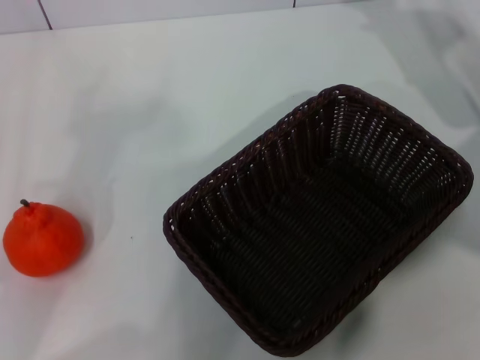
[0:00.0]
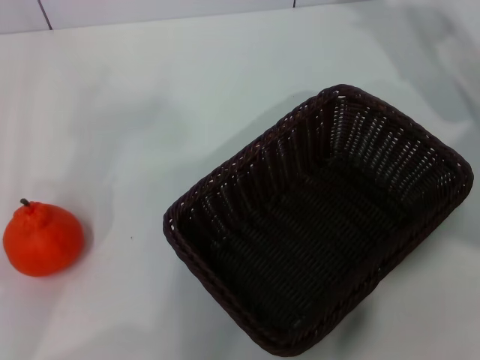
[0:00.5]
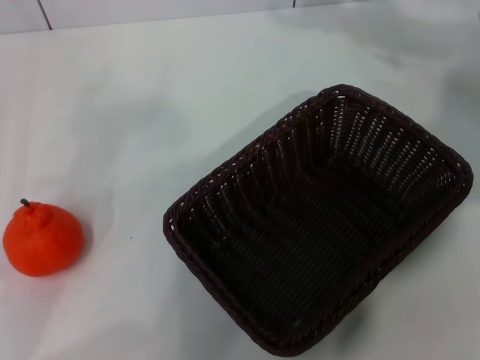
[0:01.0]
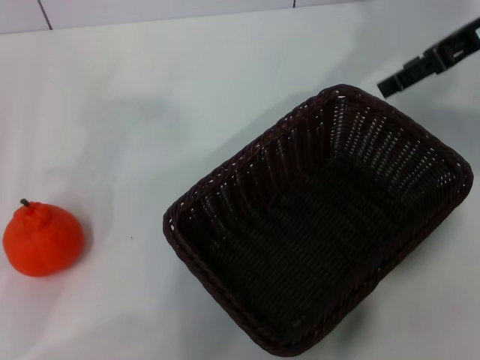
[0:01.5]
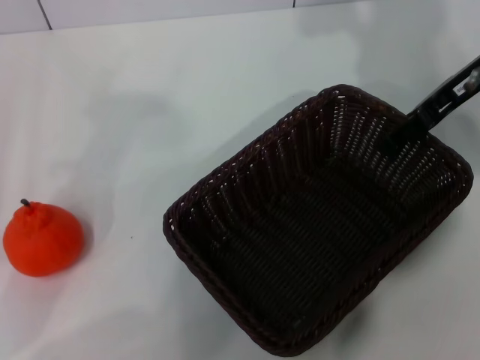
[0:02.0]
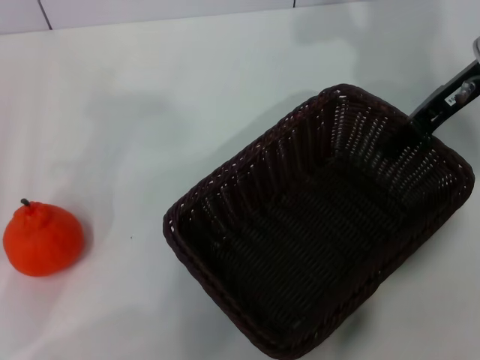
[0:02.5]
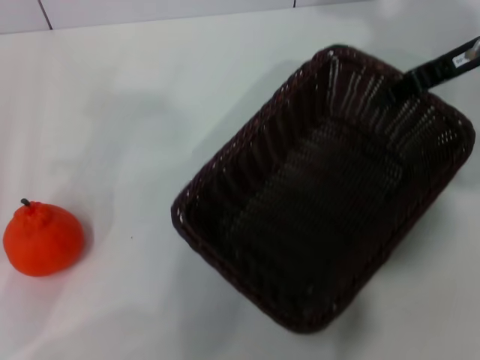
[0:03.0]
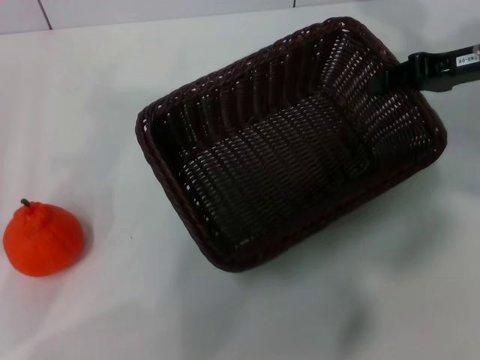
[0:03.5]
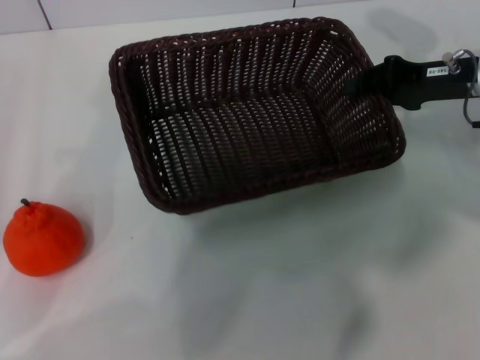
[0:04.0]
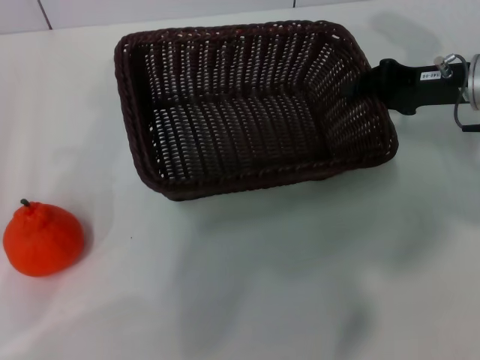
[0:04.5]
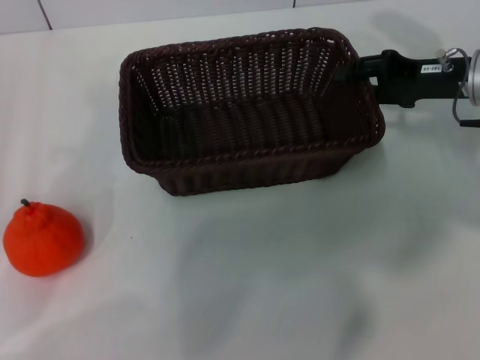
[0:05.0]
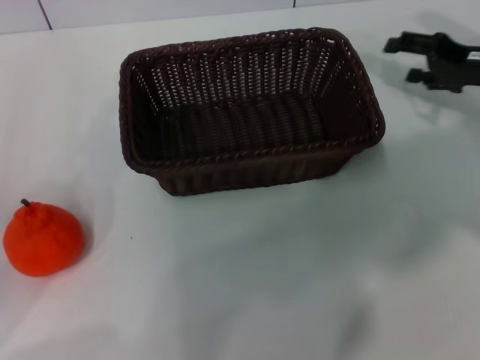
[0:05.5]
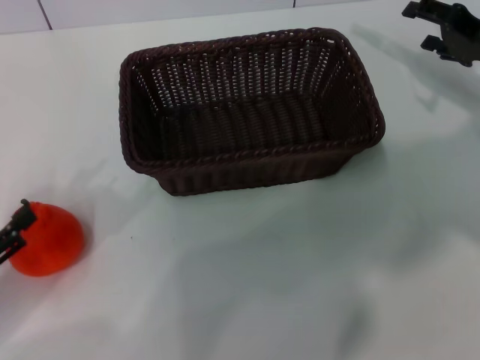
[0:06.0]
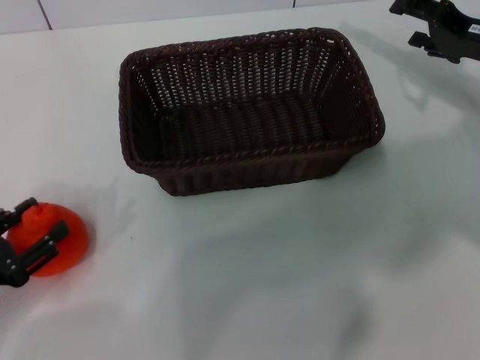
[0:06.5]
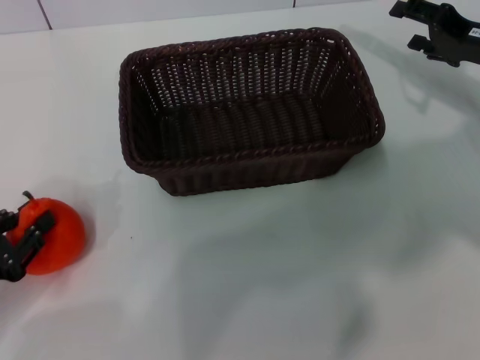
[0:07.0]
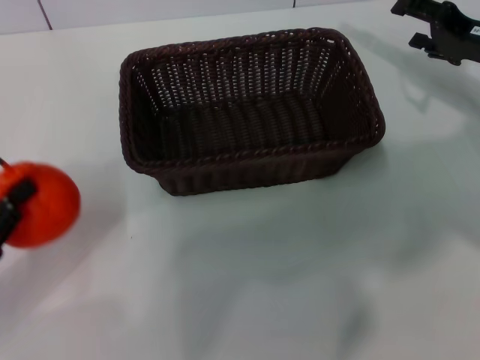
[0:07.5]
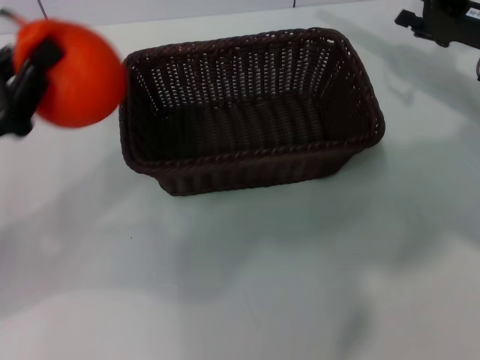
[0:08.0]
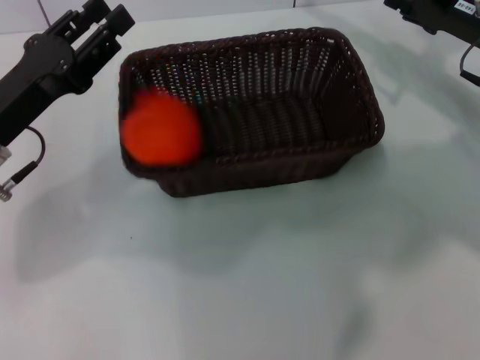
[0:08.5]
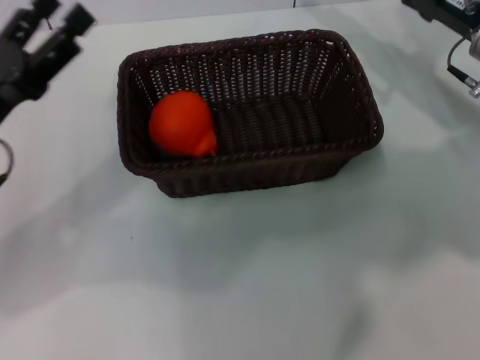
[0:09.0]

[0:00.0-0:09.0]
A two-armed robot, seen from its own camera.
Task of the whole recording: the right gripper pick up the black basket and place it horizontally in the middle of the table, the left gripper pick up the orange and place it into the black basket.
Step, 0:00.0 to 0:03.0: Pick up the dark basket with the right gripper.
Step, 0:03.5 to 0:05.0: Place the dark basket in the center of view with the right gripper.
Step, 0:05.5 to 0:07.0: Pick up the orange with the left gripper.
Step, 0:07.5 to 0:08.5: Place the orange into the dark basket with the left gripper.
0:00.0 to 0:02.0: The right gripper is displaced upward by roughly 5 cm.
0:02.0 to 0:04.5: The right gripper moves downward, about 10 cm, and closes up.
0:04.5 to 0:07.0: The left gripper shifts about 5 cm downward, and closes its fingers. The right gripper opens up.
0:07.0 to 0:09.0: The left gripper is displaced forward, upward and to the right by some 15 cm, and opens up.

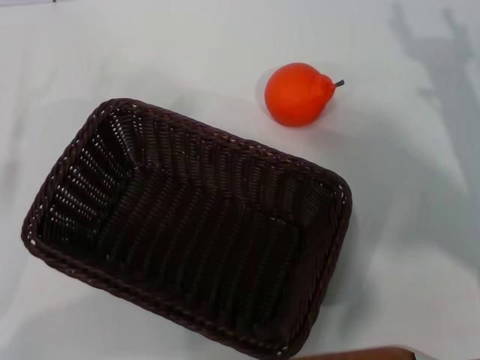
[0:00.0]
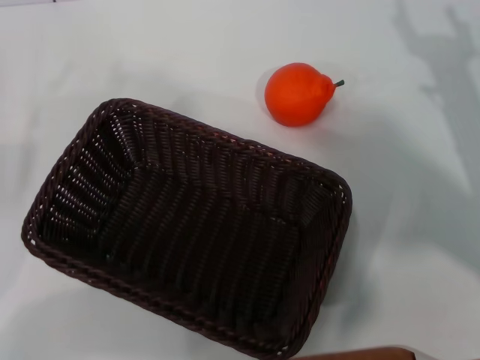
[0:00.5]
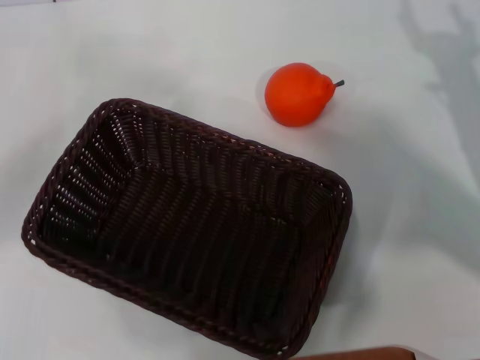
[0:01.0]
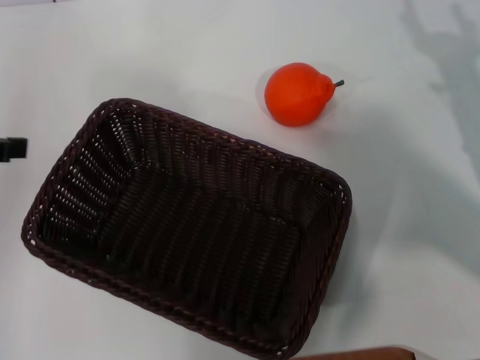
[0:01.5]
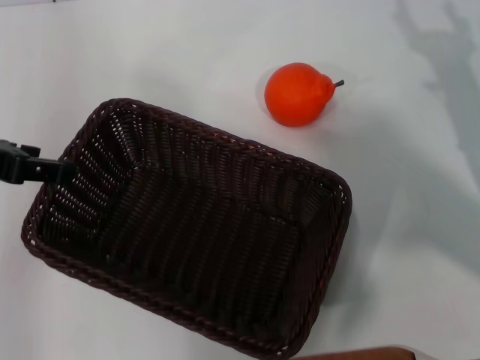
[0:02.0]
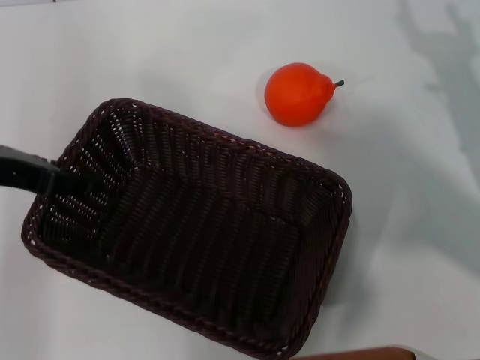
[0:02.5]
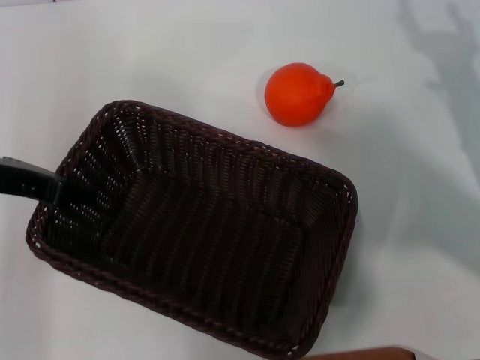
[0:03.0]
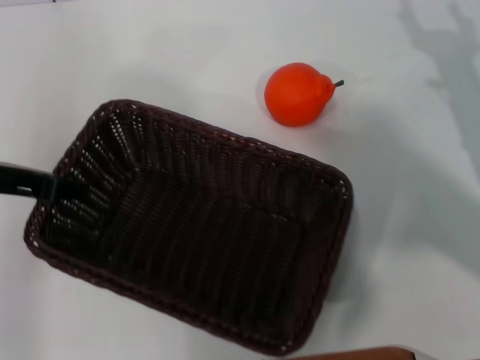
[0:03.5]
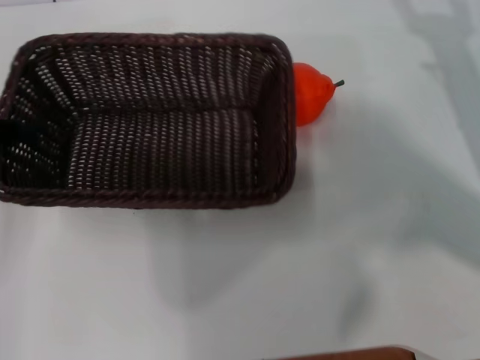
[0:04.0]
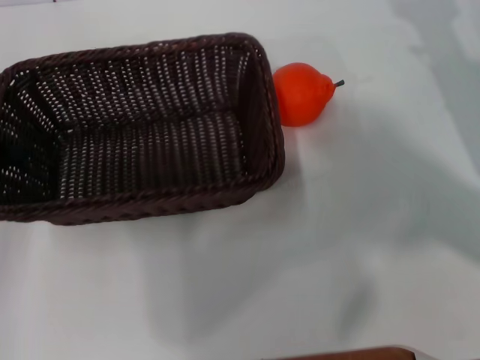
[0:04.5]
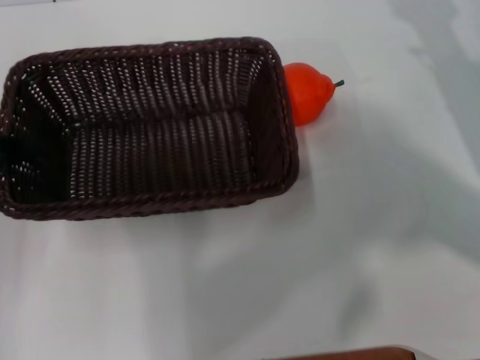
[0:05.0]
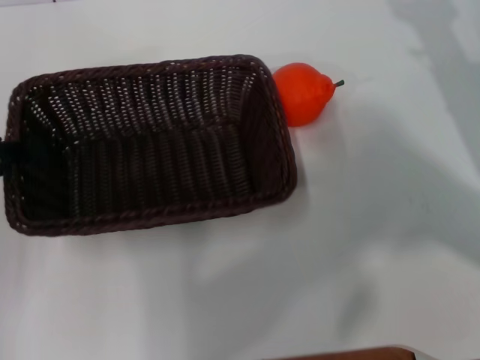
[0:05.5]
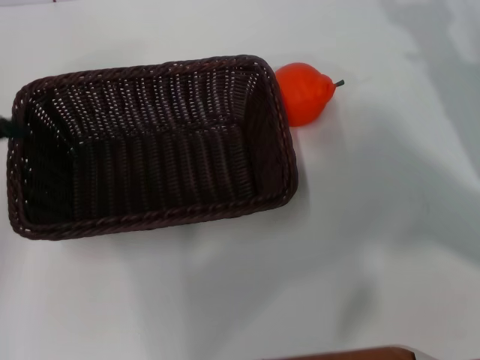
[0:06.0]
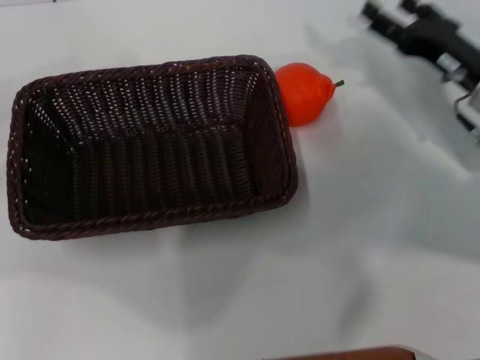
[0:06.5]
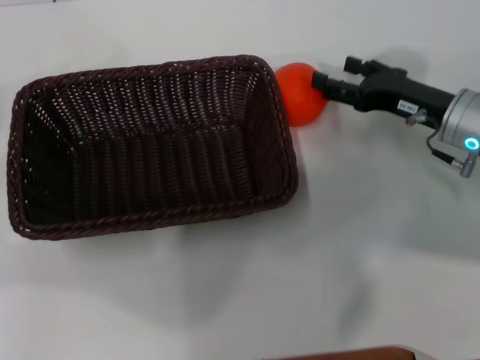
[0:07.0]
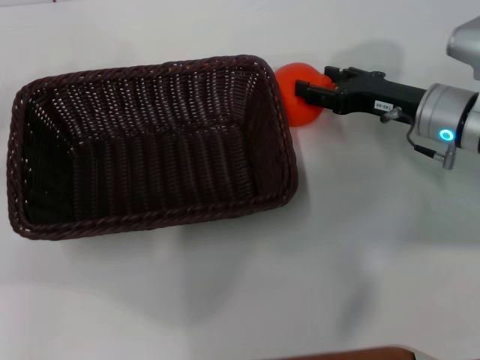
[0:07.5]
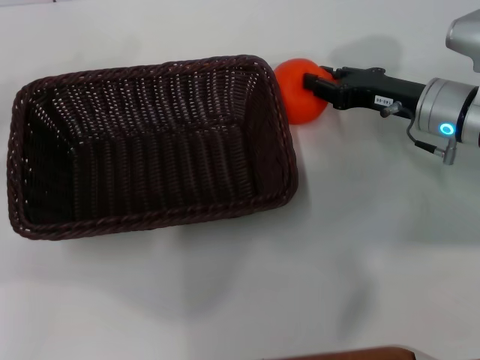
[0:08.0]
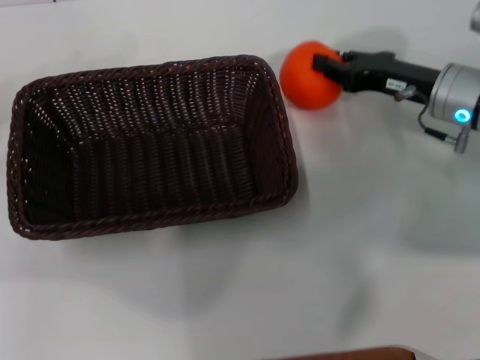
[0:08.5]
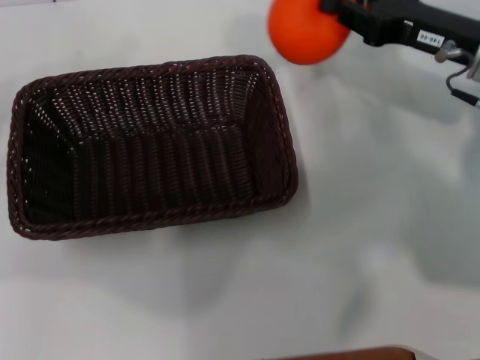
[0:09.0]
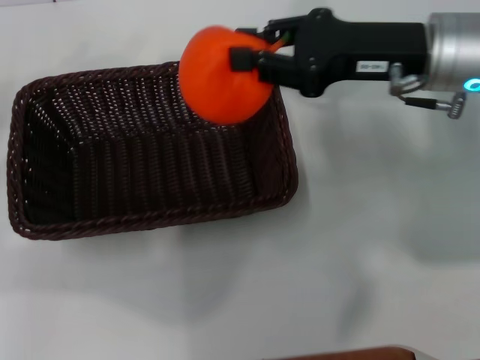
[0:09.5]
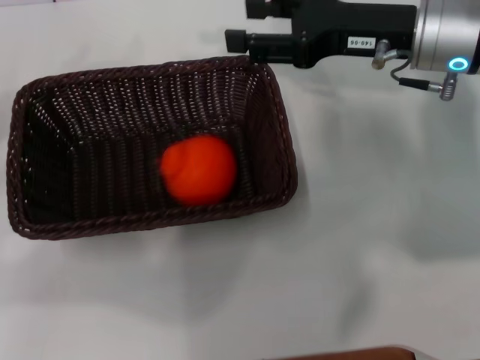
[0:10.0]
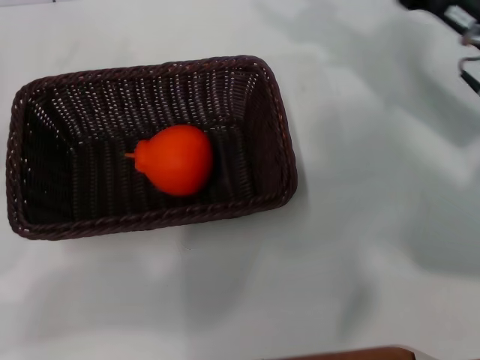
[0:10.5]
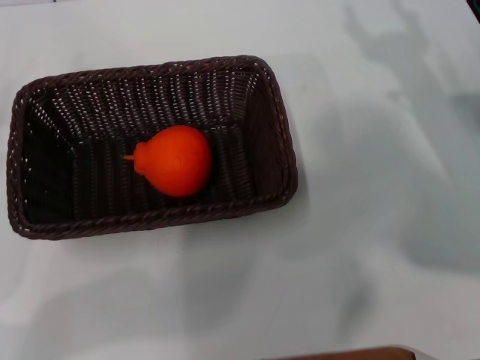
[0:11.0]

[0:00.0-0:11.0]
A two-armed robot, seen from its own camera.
Task of the whole recording: the left gripper pick up the black basket and place it horizontally in the middle of the table, the right gripper pick up the orange and place it into the black basket.
Step, 0:00.0 to 0:03.5: Pick up the dark basket with the left gripper.
Step, 0:04.0 to 0:06.0: Place the dark basket in the center of view with the left gripper.
Step, 0:06.5 to 0:08.5: Pick up the orange with the right gripper.
Step, 0:09.0 to 0:09.5: Place the orange into the dark basket with the right gripper.
0:00.0 to 0:02.0: The left gripper moves upward, to the right and forward, some 20 cm.
0:02.0 to 0:03.5: The left gripper is displaced downward by about 5 cm, and closes its fingers.
0:03.5 to 0:05.5: The left gripper moves about 5 cm.
0:05.5 to 0:07.5: The two grippers go roughly 10 cm to the left. The left gripper opens up.
0:07.5 to 0:09.0: The right gripper is displaced upward by roughly 10 cm, and closes its fingers.
0:09.0 to 0:11.0: The right gripper goes approximately 10 cm downward and backward, and opens up. Meanwhile the left gripper shifts about 10 cm downward.

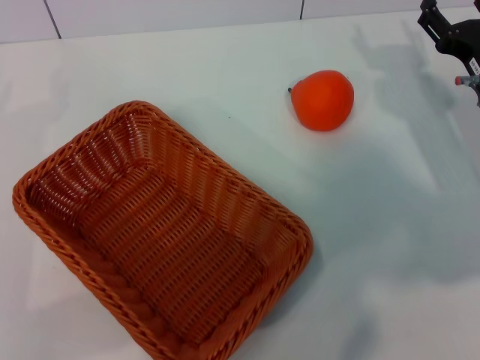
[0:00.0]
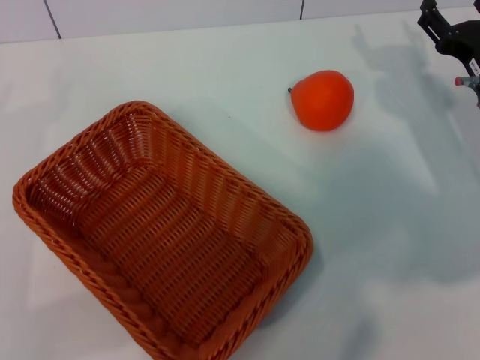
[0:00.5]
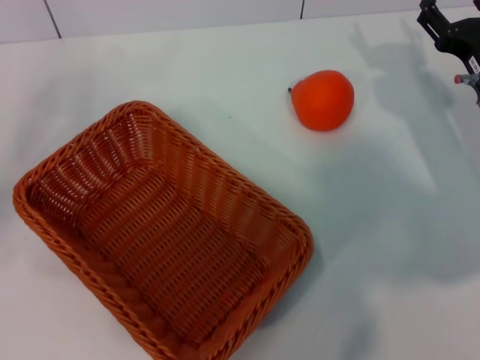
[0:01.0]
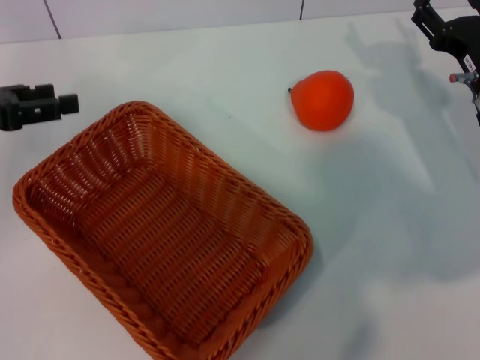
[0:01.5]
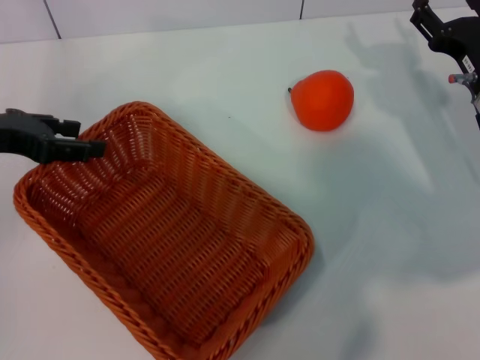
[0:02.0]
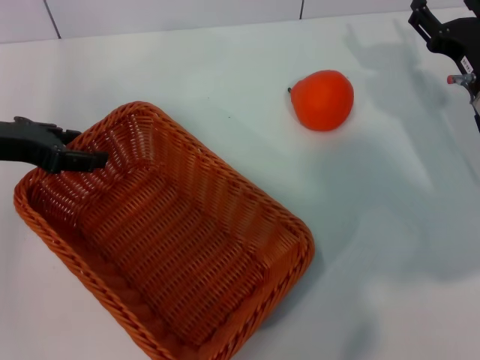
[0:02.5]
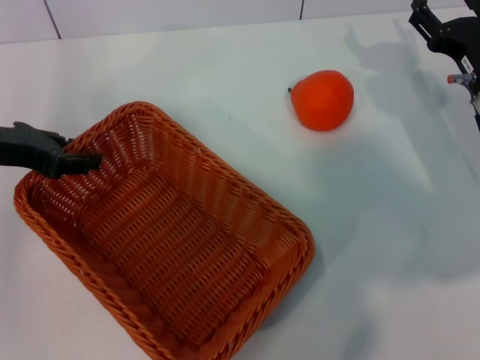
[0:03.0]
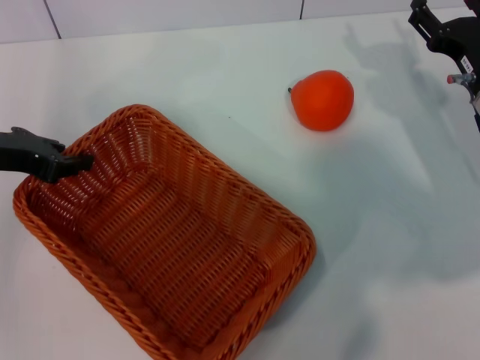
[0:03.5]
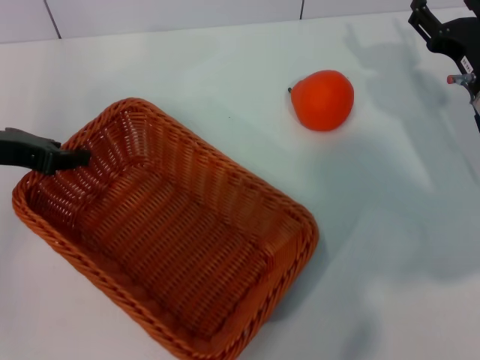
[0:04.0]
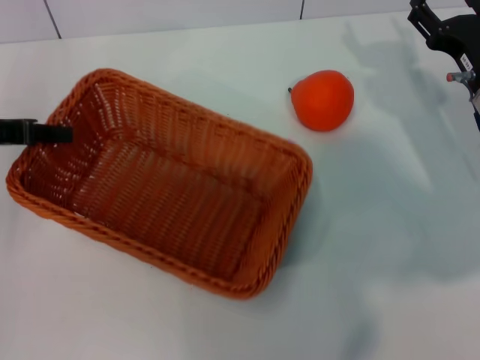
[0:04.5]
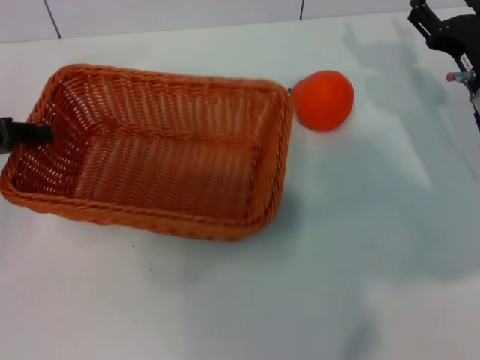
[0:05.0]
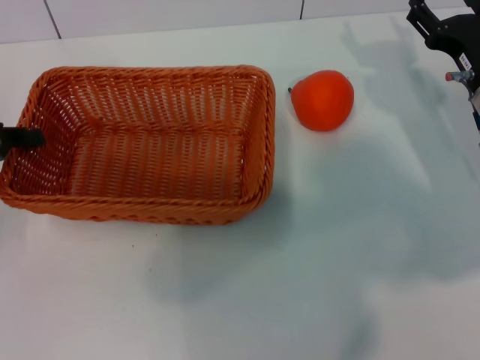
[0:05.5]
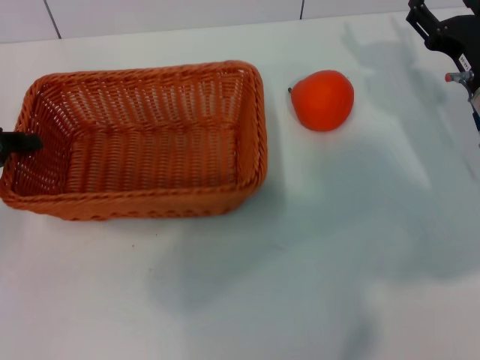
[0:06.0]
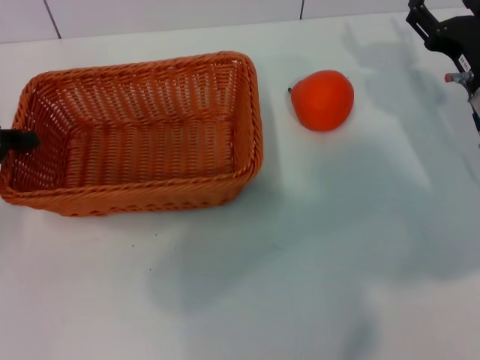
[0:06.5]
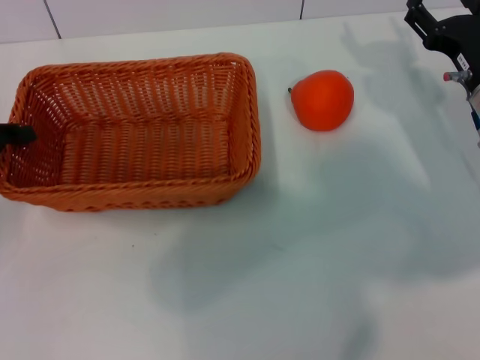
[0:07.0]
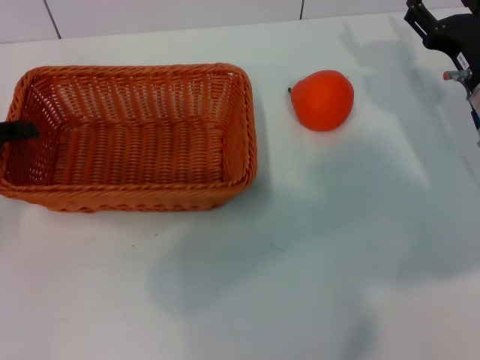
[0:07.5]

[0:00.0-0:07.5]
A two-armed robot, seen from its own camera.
Task of the whole recording: the left gripper pick up the yellow basket and place it horizontally in the middle of the table, the right gripper pick up the orange and place it into the yellow basket.
Step, 0:00.0 to 0:04.0: Pick up the light basket with the left gripper.
0:00.0 to 0:02.0: The left gripper is displaced upward, forward and to the right by about 15 cm.
0:02.0 to 0:04.0: The left gripper closes up.
0:04.0 to 0:05.5: The left gripper ends up about 5 cm from where it was.
0:05.5 to 0:07.5: There are only small adjustments of the grippers.
